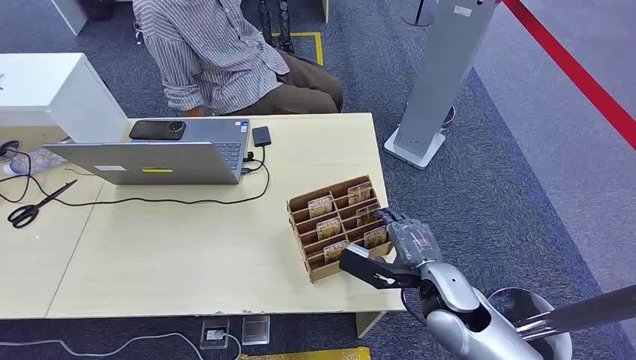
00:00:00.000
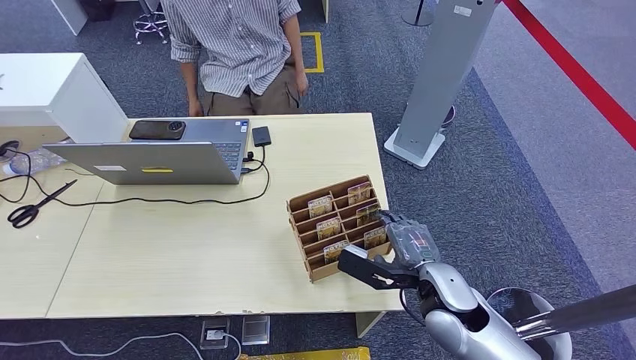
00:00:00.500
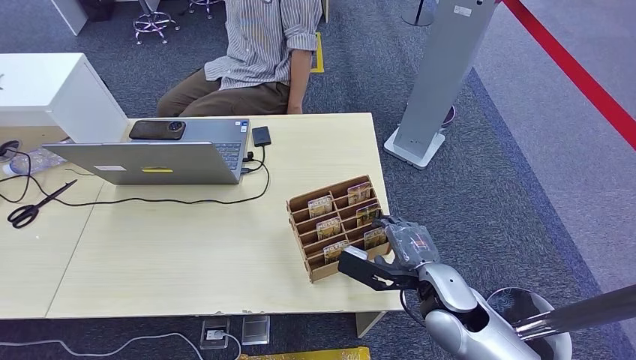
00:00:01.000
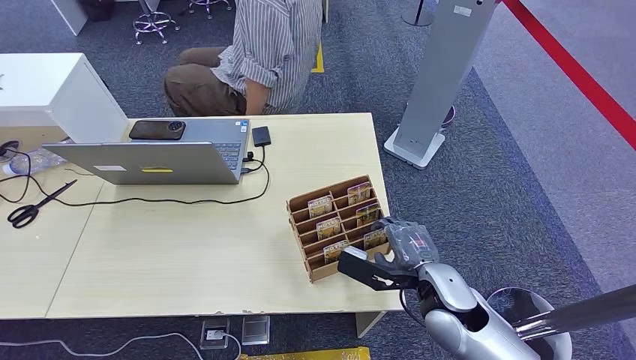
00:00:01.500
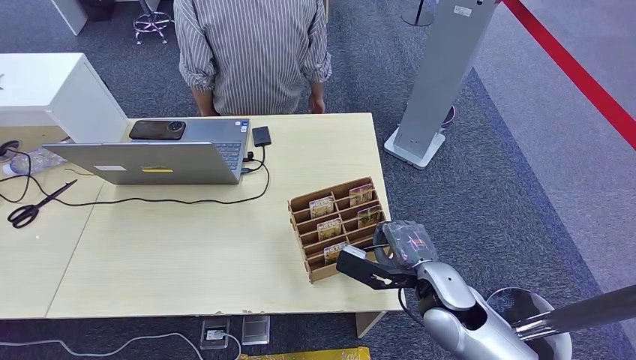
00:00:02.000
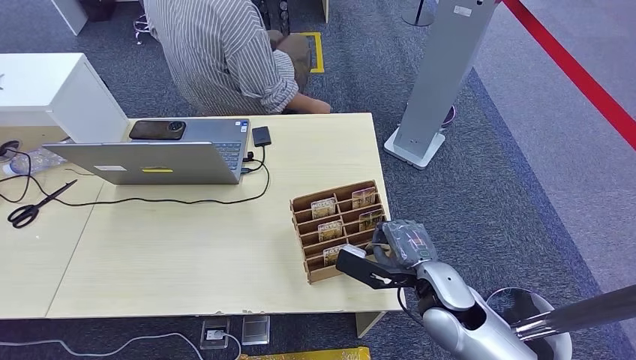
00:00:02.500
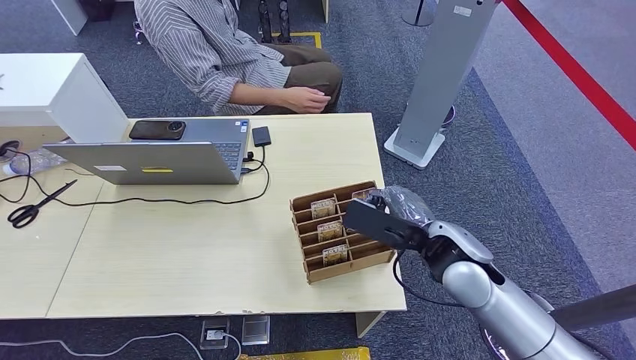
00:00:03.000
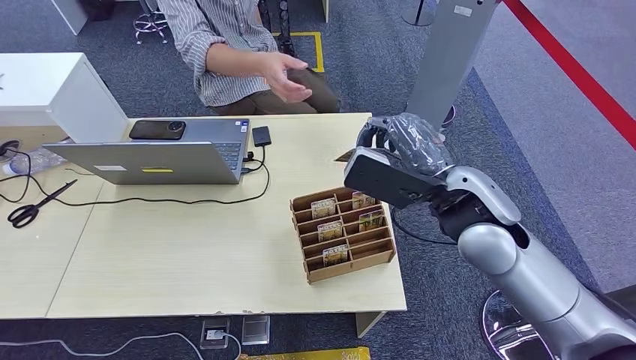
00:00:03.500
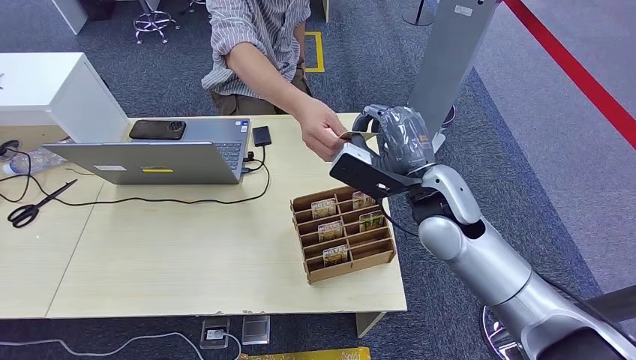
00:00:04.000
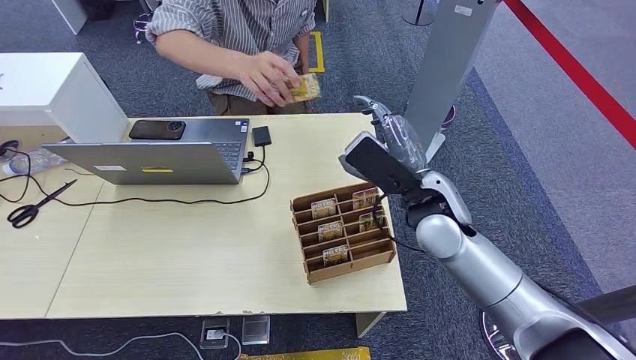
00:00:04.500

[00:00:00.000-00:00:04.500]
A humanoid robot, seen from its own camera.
Step, 00:00:00.000 to 00:00:03.000: Pick up the room card from the card holder.
Step, 00:00:04.000 to 00:00:04.500: Hand the room card to the target.
00:00:02.000 to 00:00:04.500: The right hand shifts approximately 15 cm upward and forward.
